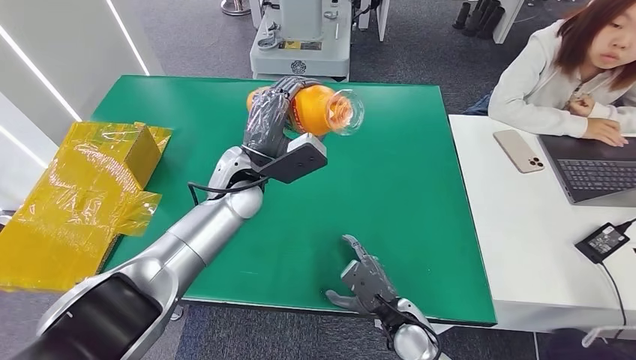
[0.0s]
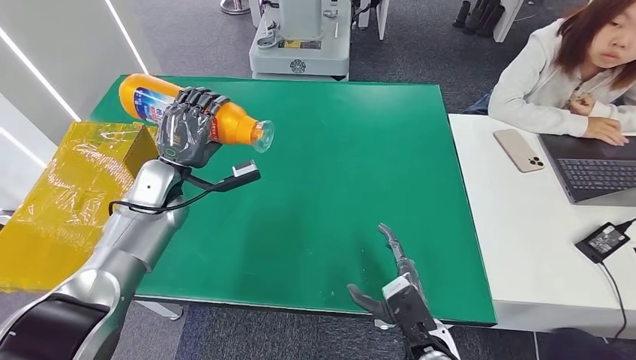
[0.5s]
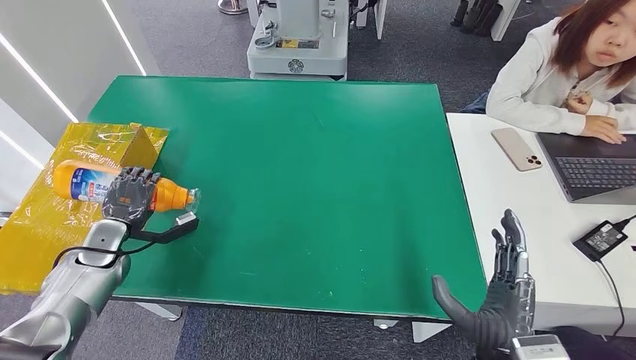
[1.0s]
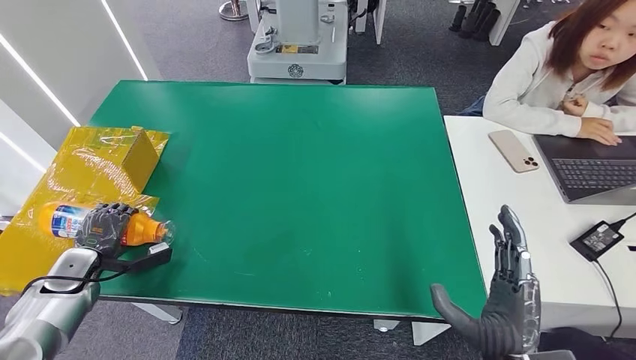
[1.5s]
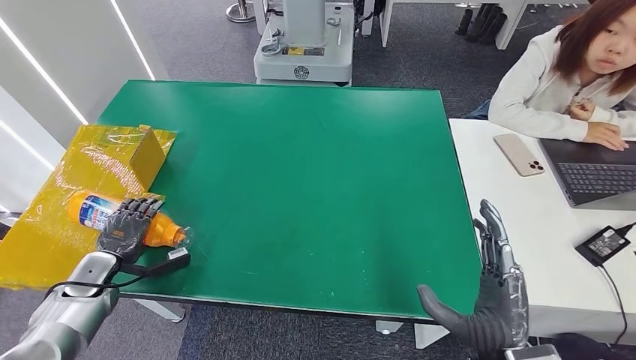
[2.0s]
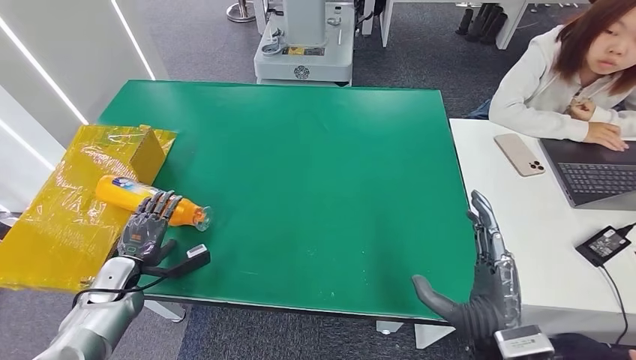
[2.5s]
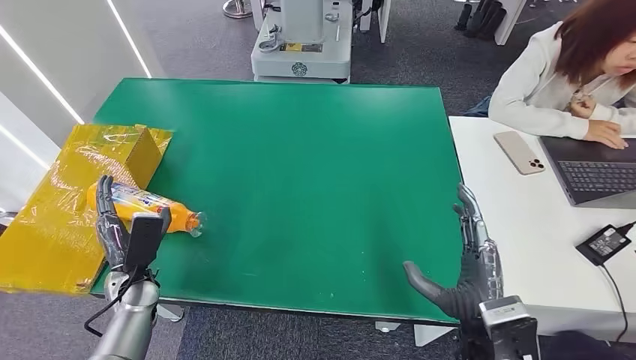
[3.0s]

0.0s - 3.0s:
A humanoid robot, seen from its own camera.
Step, 0.0s - 2.5s: Turn the bottle to the front side.
